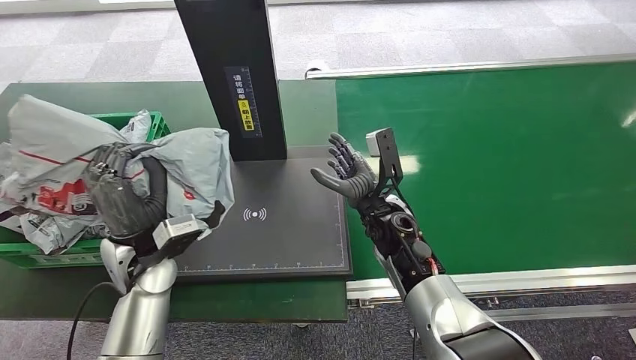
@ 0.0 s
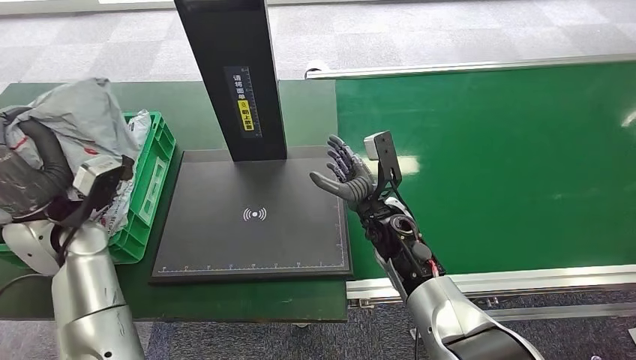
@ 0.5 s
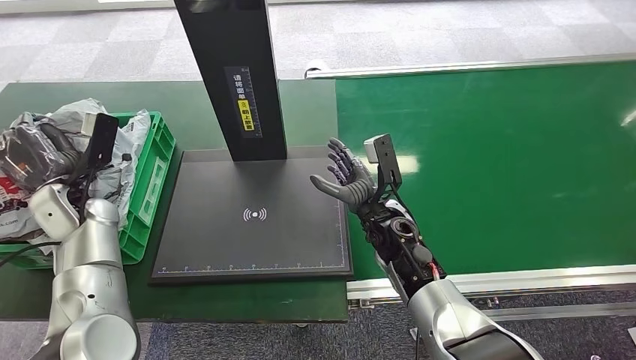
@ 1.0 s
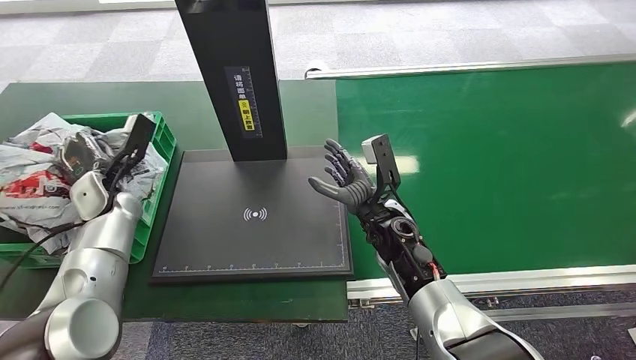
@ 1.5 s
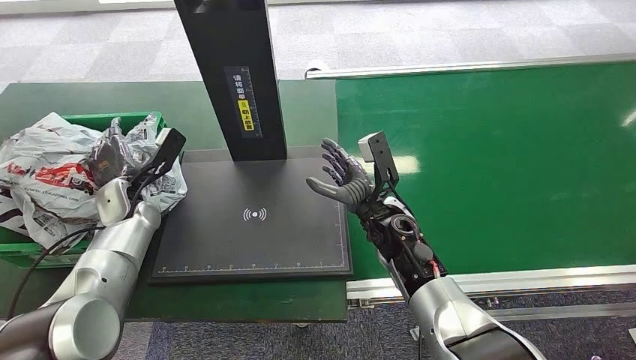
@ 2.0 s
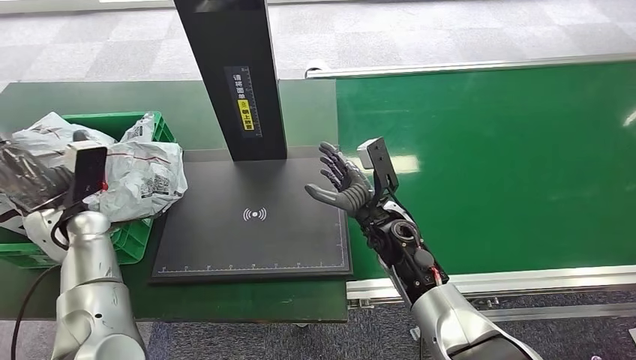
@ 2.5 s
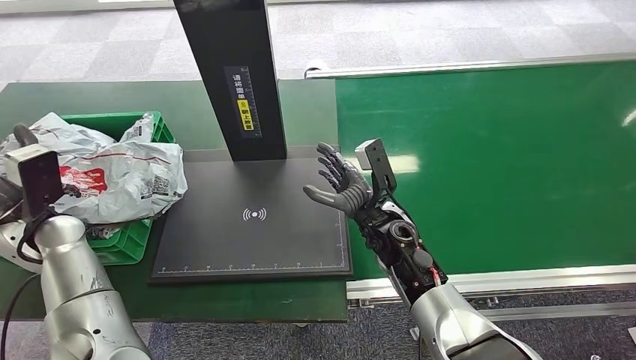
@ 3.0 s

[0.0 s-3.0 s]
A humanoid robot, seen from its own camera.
Task of the whole recording: Weigh the package on the weighing device and place it in the left basket.
Step, 1.0 to 3.0 s: Place the package into the parcel locker.
0.0 to 1.5 s: The left hand goes about 15 cm to the left and forward.
1.5 to 3.0 s: The left hand shifts approximately 10 cm backward.

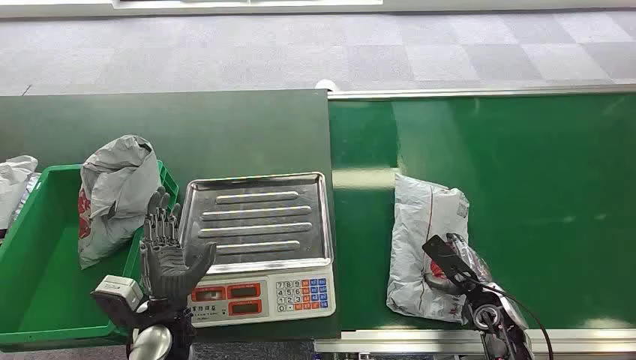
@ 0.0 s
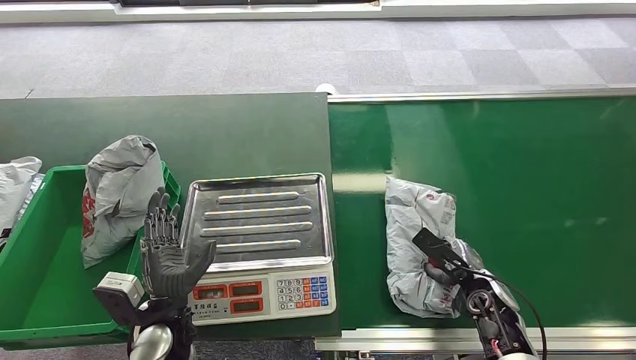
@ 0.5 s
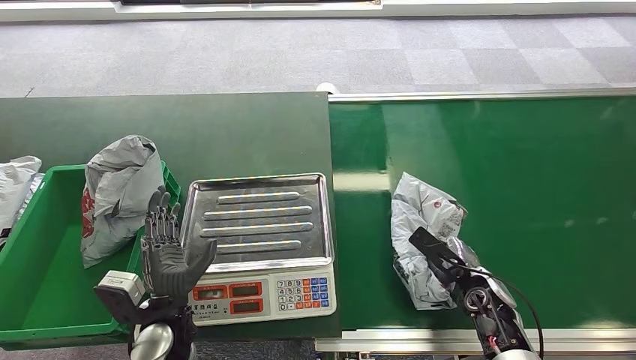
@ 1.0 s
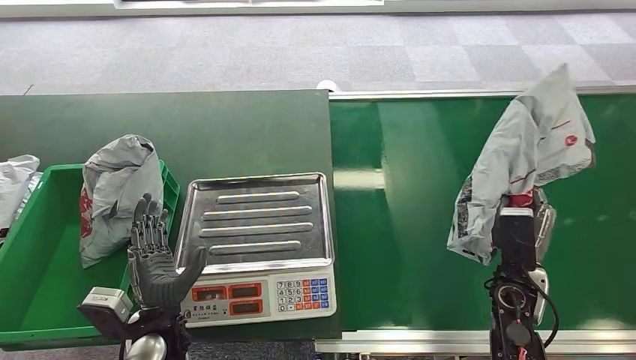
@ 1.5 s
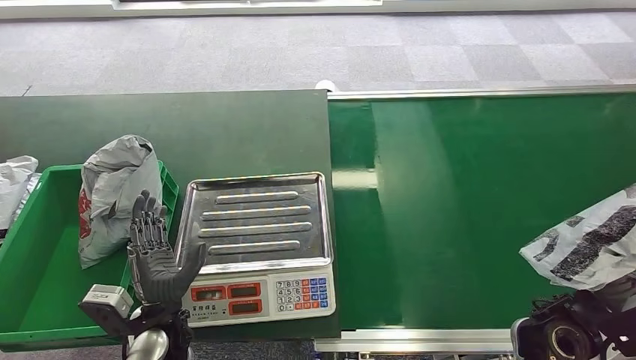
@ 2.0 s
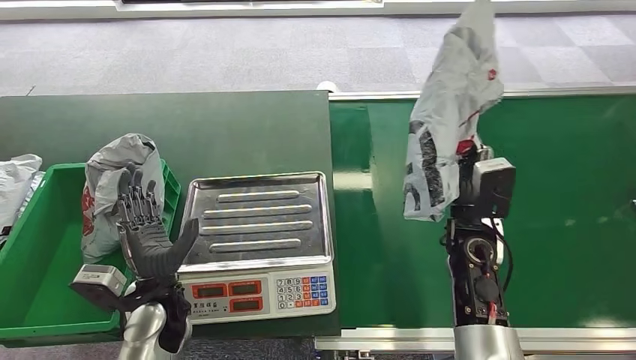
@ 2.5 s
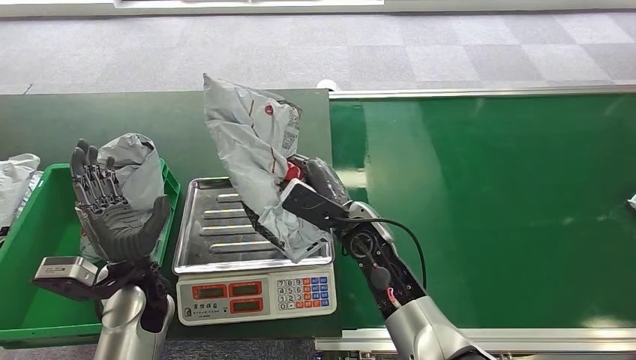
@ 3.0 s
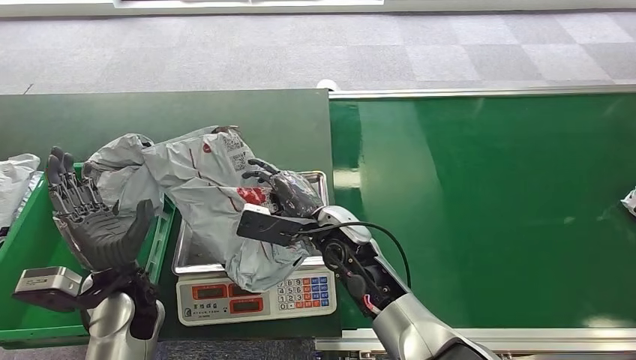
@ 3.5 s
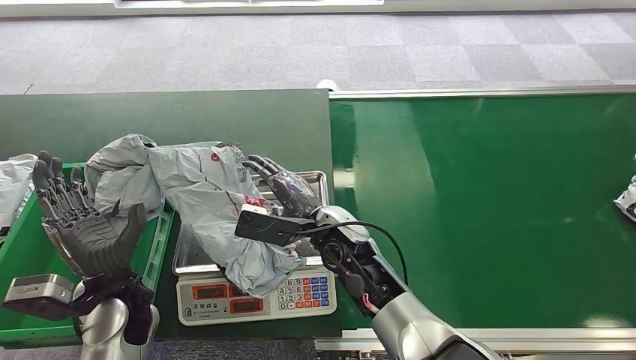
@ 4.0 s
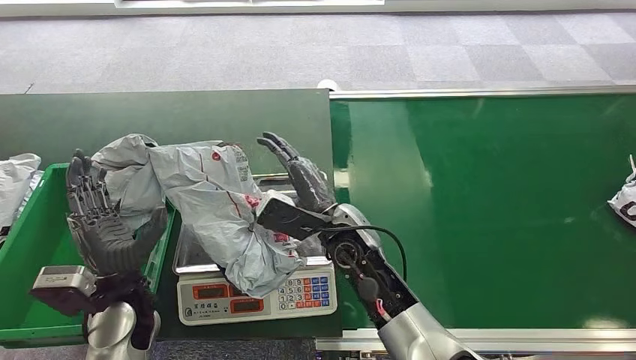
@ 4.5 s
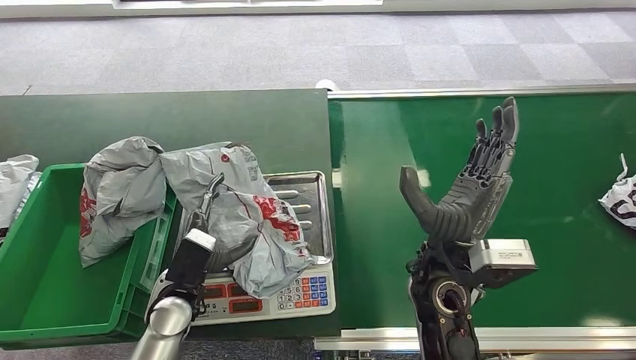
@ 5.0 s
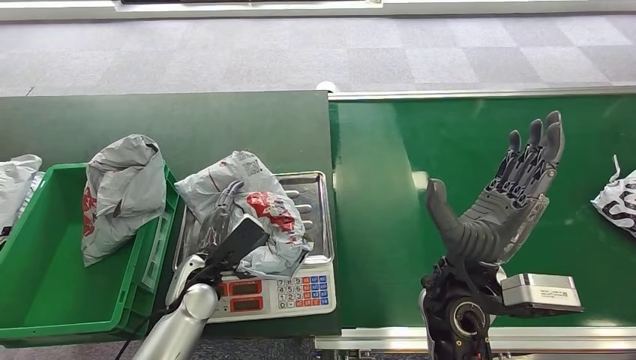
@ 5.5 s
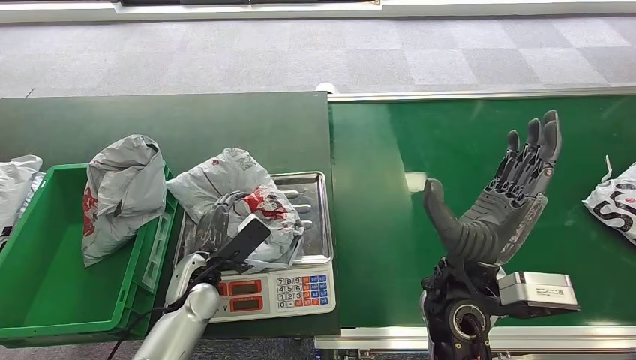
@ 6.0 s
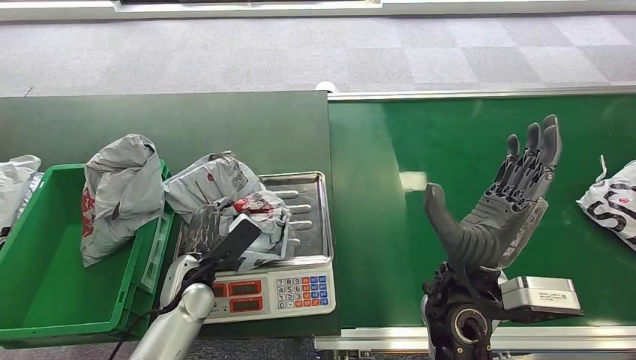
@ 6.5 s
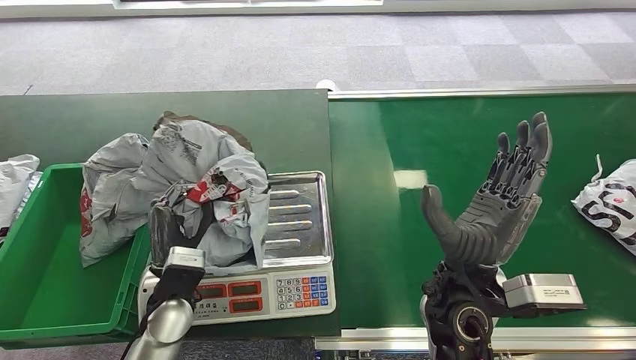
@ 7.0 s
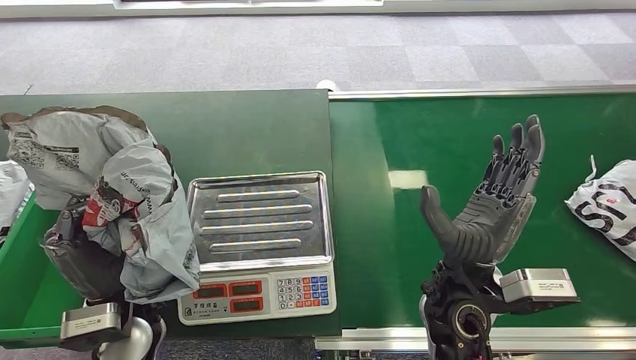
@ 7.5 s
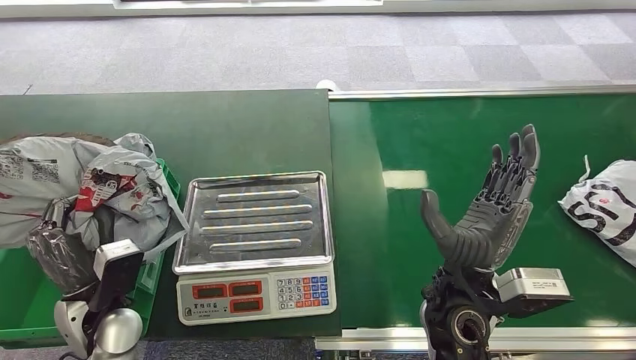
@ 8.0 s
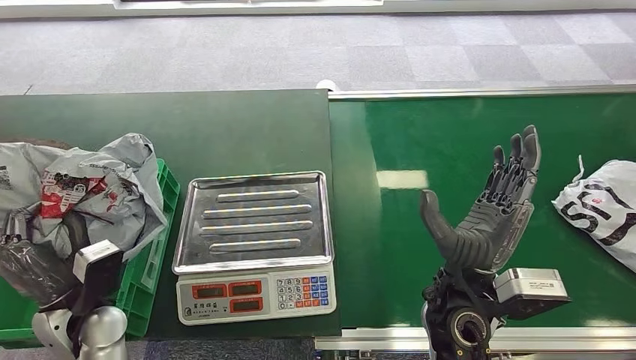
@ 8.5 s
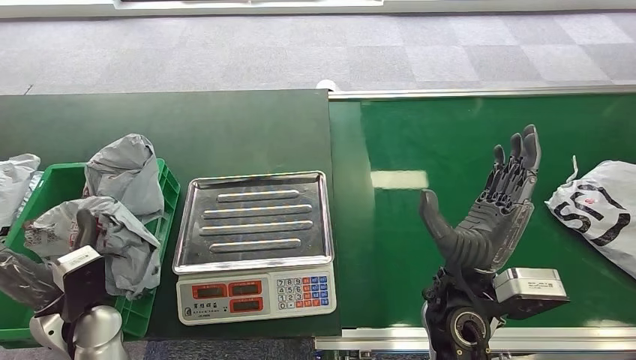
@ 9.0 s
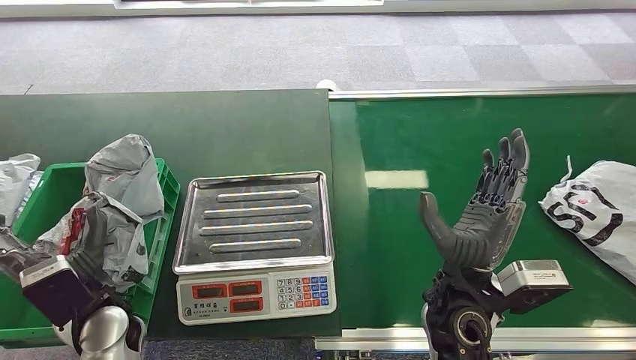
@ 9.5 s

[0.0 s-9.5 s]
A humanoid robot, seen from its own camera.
Task of the whole recording: Weigh the package on the weighing device and place it in the left basket.
Step, 0.0 to 1.0 s: Pick up the package from the conveyor belt.
Step, 3.0 to 4.5 s: Place the package onto the inbound machine.
Step, 6.5 to 7.5 s: Pick up the package from the inbound machine.
Step, 8.0 to 9.5 s: Place the package into the parcel locker.
7.5 to 9.5 s: The left hand goes some 5 cm to the left.
